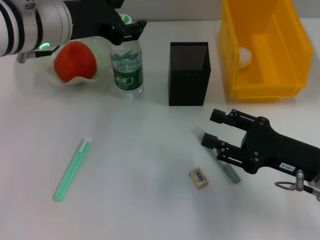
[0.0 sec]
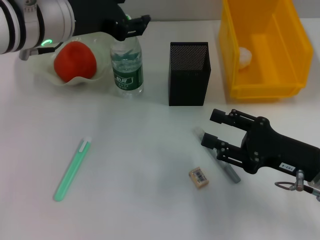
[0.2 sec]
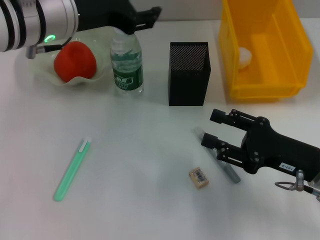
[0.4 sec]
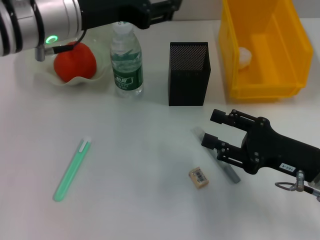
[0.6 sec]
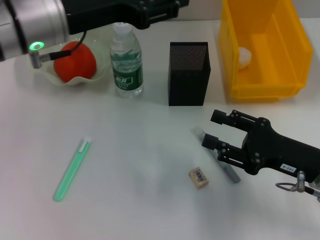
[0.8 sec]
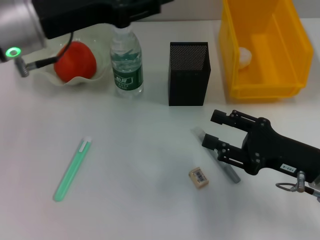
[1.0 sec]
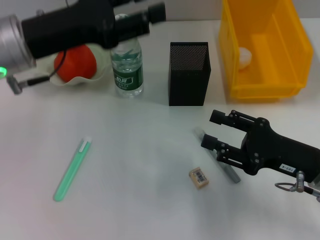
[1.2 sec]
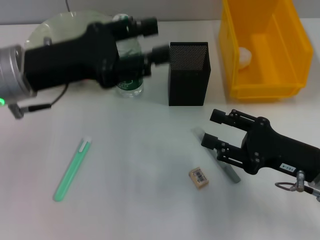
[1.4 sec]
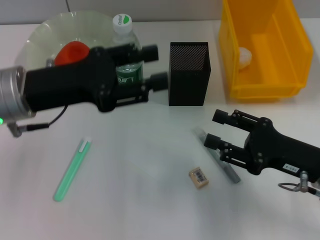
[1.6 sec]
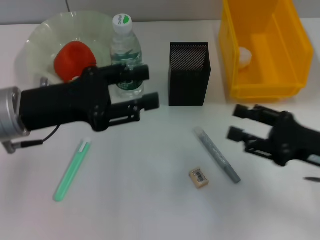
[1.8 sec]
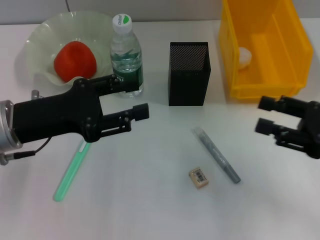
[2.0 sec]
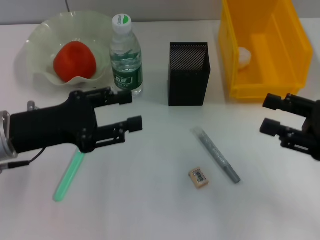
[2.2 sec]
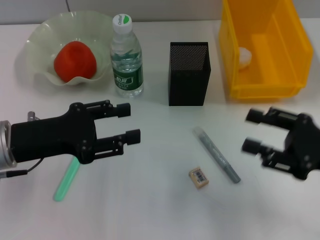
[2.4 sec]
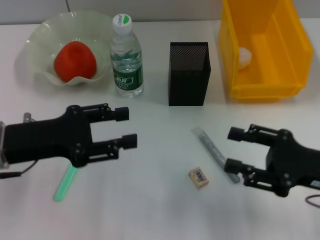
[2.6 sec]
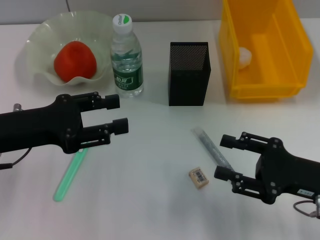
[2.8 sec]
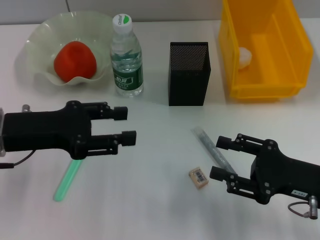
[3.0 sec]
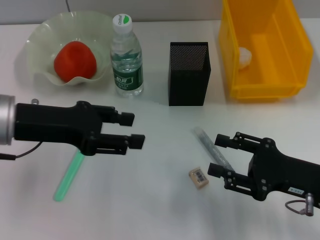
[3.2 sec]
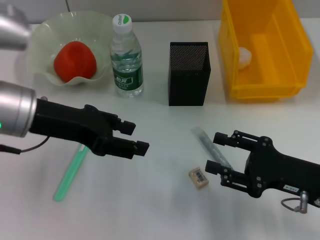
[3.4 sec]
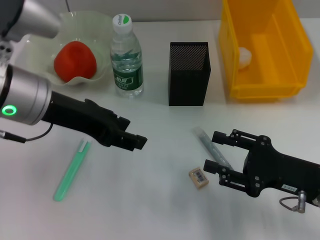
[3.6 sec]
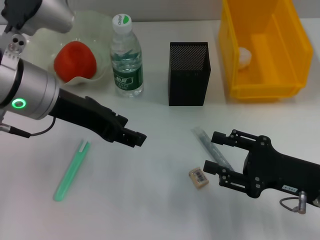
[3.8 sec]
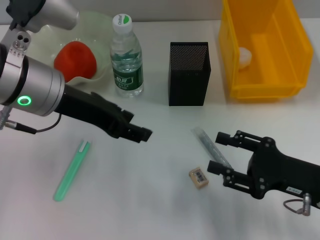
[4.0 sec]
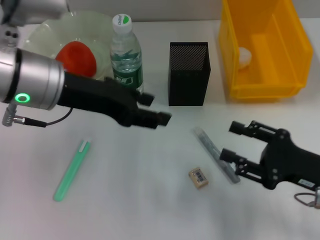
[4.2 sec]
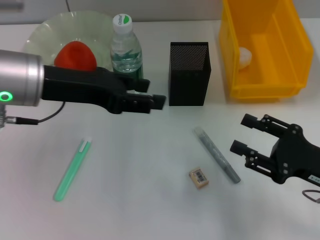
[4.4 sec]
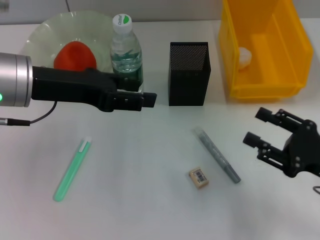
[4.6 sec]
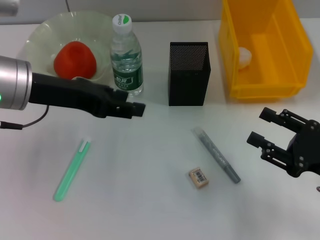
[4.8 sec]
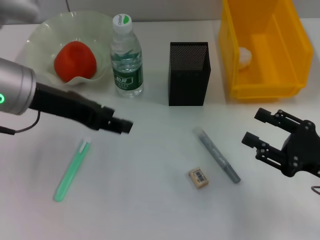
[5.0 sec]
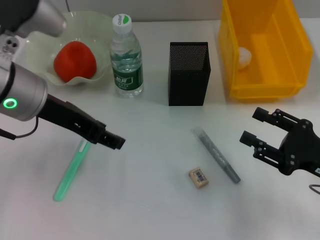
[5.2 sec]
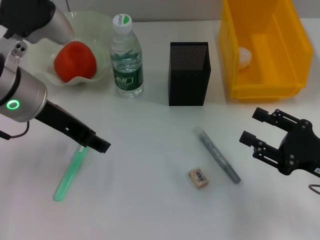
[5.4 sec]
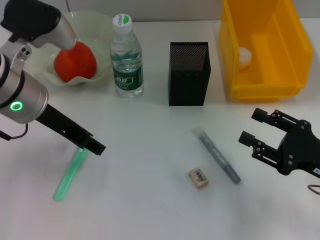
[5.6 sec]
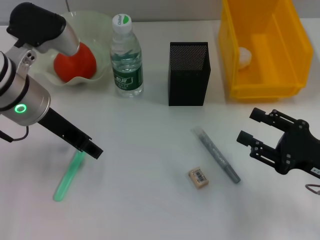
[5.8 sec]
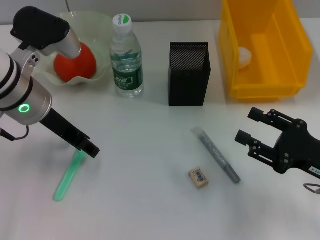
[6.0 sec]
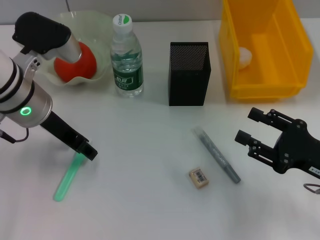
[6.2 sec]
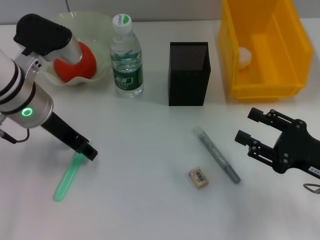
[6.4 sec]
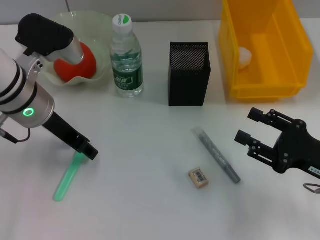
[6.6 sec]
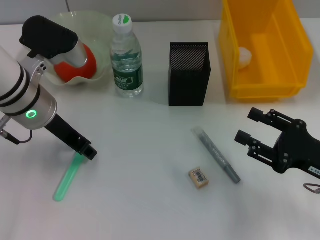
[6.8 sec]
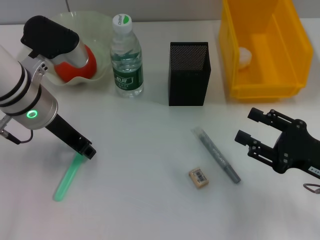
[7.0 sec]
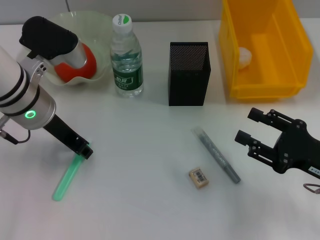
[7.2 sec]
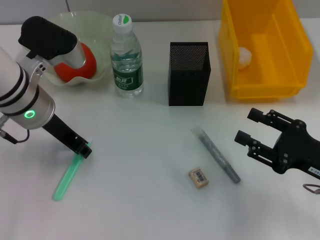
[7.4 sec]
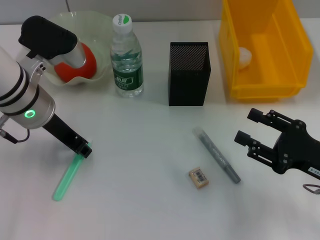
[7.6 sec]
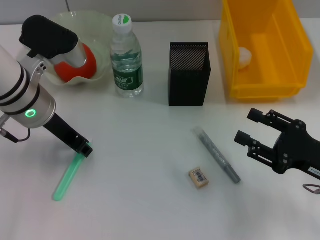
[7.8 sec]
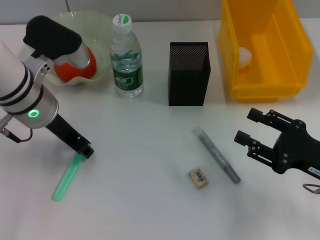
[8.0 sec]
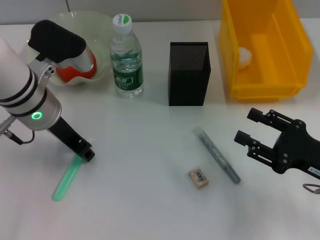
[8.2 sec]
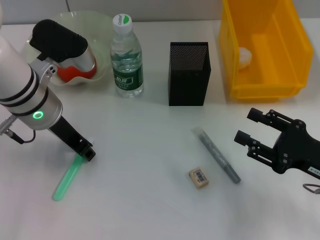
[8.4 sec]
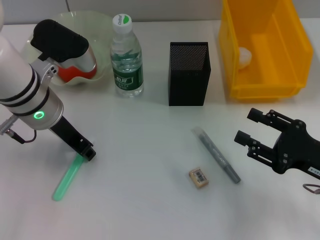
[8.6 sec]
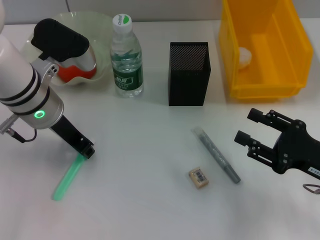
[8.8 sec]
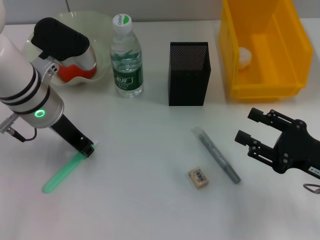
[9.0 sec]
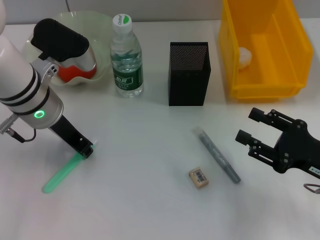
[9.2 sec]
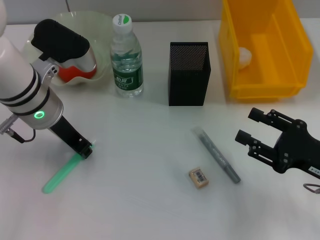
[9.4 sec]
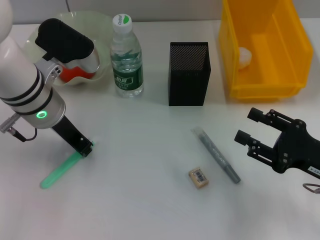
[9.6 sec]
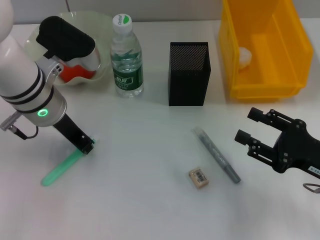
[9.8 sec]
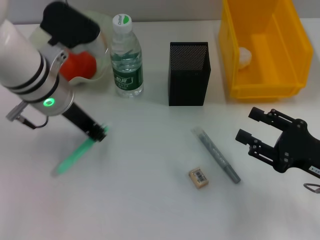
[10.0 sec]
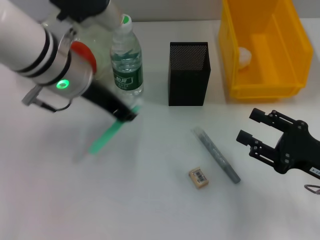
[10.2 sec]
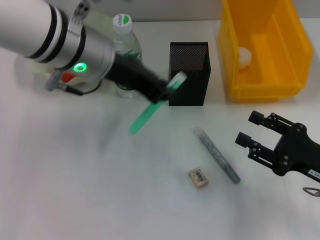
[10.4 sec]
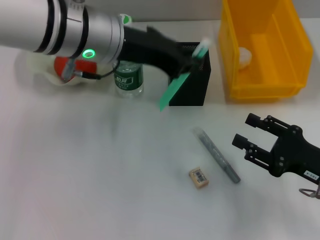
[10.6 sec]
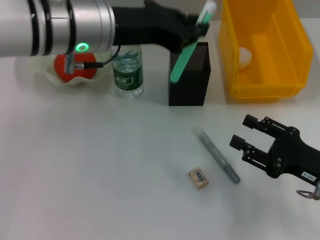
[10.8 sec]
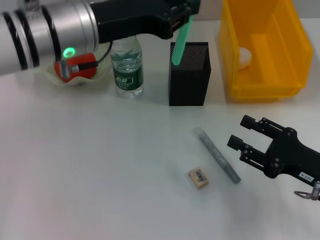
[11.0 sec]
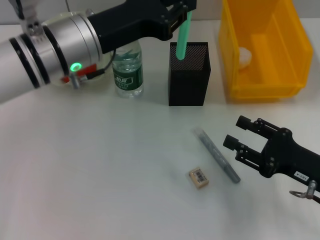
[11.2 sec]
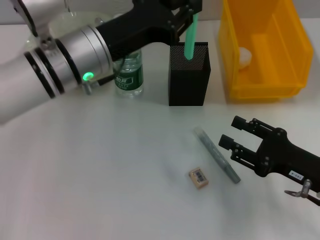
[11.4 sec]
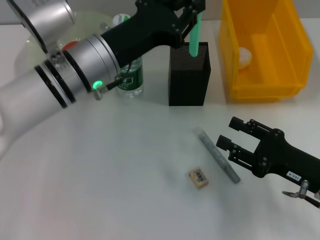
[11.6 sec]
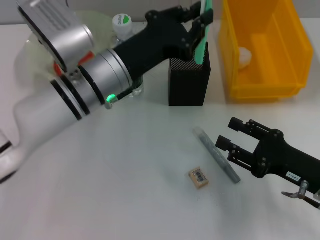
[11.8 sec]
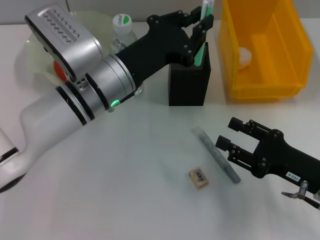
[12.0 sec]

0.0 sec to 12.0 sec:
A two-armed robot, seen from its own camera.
Step, 0.0 sec to 9.6 sec: Grab the blue utility knife with the left hand.
0.0 sec to 1.6 sec: The left gripper travels backward, to the left and downward by approximately 10 cm.
1.6 sec to 3.0 sec: The left gripper ends up approximately 5 cm from where it was.
3.0 sec to 4.4 sec: The left gripper is displaced upward and to the right by approximately 10 cm.
6.0 sec to 7.6 sec: The left gripper closes its fingers.
7.6 sec to 9.0 sec: Neither gripper changes place.
9.0 sec to 10.4 sec: The left gripper goes some 10 cm upward and to the right.
10.4 sec to 12.0 sec: The left gripper moves downward, some 10 cm.

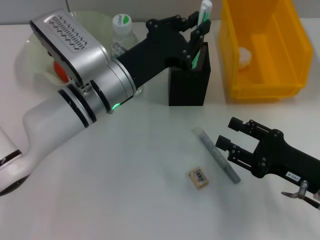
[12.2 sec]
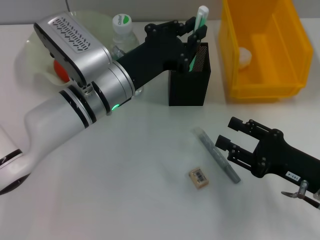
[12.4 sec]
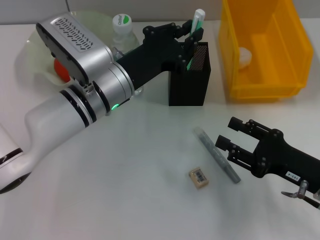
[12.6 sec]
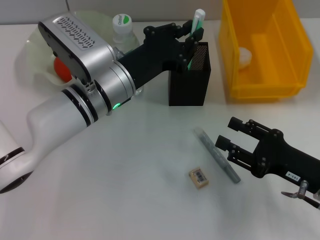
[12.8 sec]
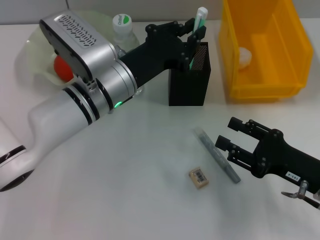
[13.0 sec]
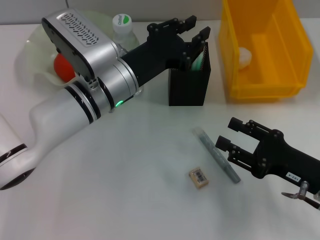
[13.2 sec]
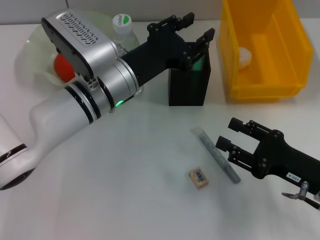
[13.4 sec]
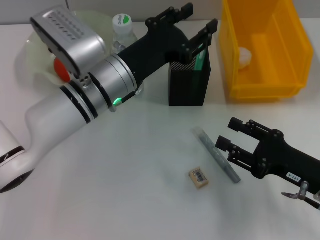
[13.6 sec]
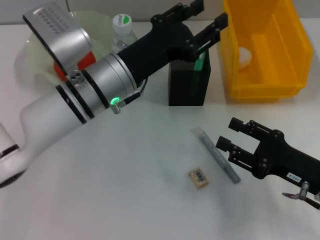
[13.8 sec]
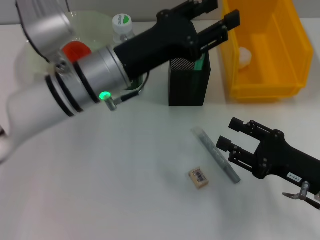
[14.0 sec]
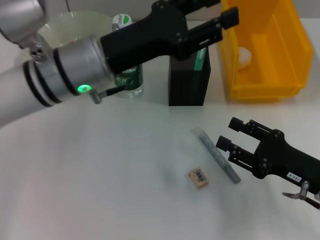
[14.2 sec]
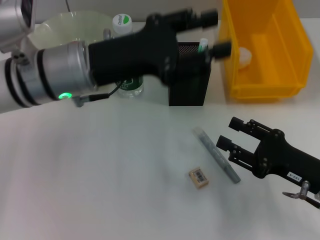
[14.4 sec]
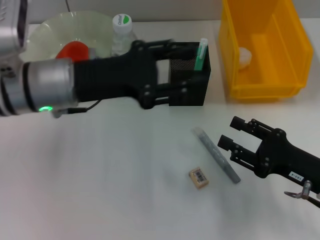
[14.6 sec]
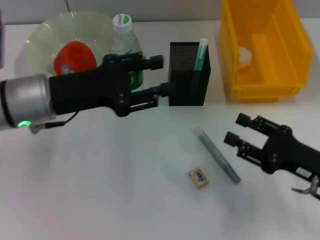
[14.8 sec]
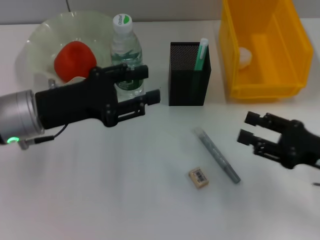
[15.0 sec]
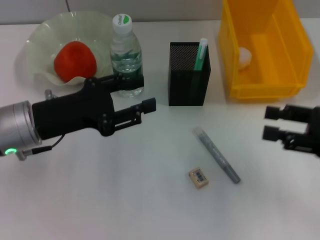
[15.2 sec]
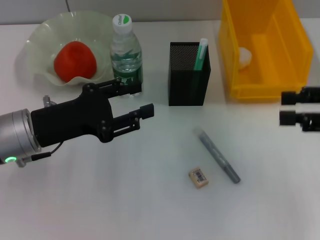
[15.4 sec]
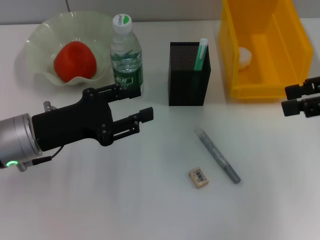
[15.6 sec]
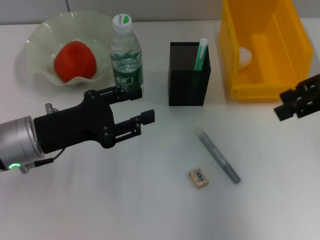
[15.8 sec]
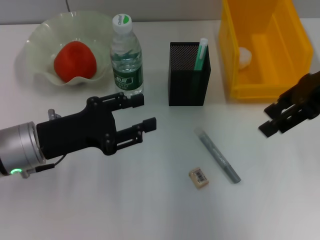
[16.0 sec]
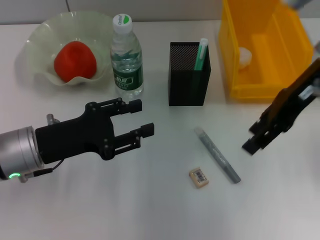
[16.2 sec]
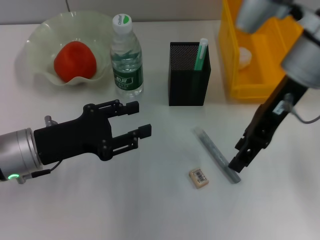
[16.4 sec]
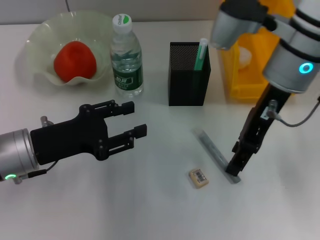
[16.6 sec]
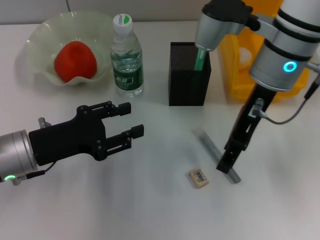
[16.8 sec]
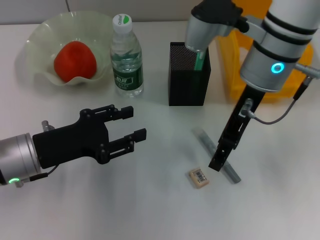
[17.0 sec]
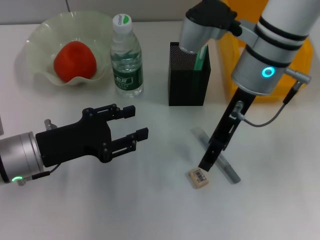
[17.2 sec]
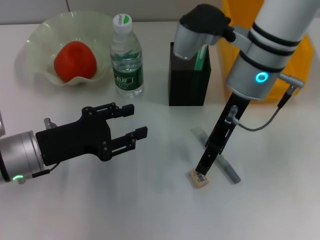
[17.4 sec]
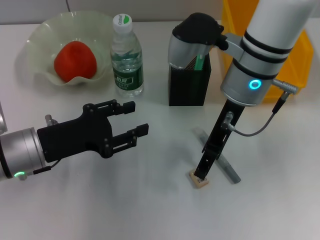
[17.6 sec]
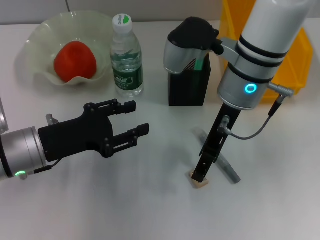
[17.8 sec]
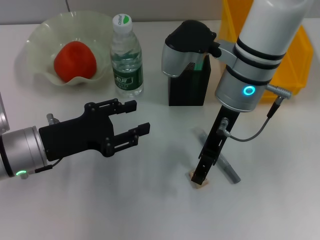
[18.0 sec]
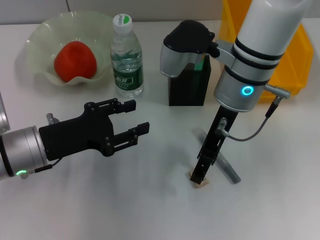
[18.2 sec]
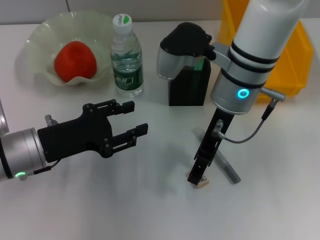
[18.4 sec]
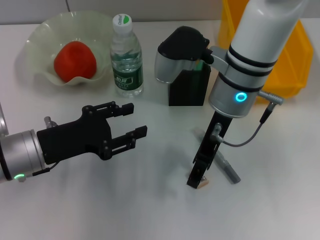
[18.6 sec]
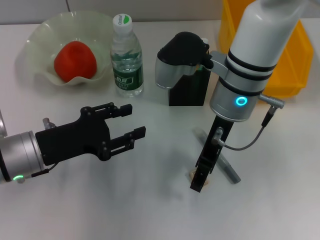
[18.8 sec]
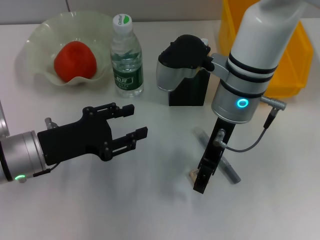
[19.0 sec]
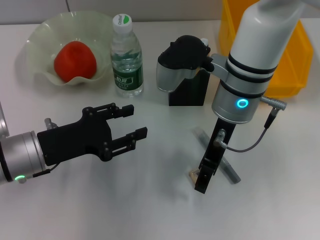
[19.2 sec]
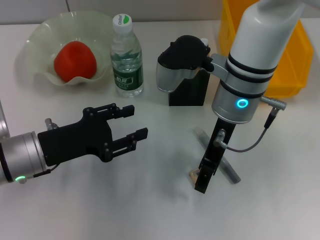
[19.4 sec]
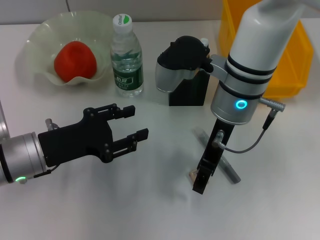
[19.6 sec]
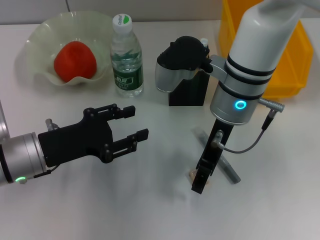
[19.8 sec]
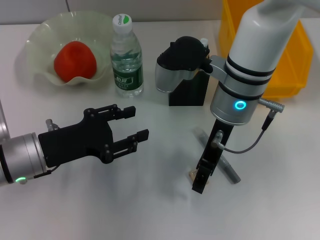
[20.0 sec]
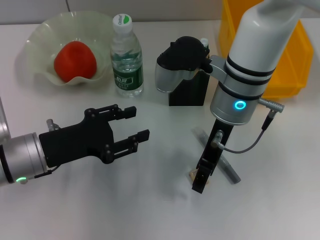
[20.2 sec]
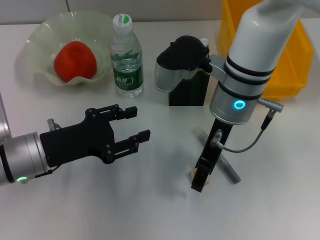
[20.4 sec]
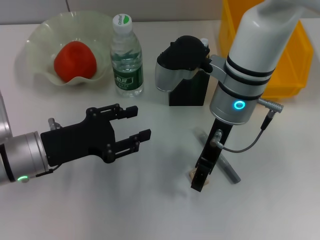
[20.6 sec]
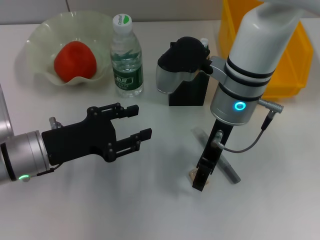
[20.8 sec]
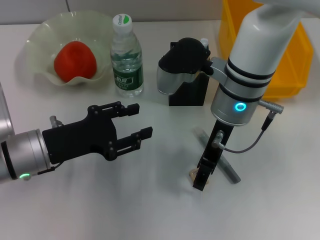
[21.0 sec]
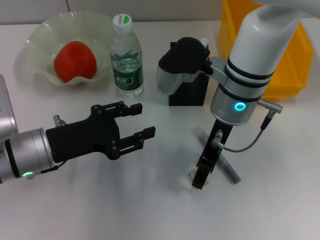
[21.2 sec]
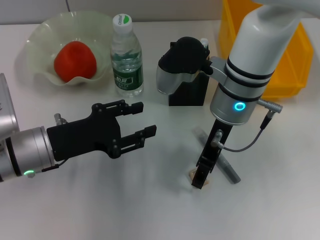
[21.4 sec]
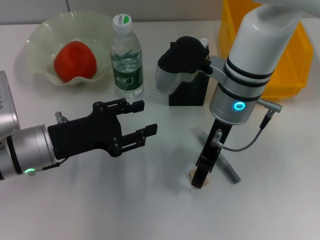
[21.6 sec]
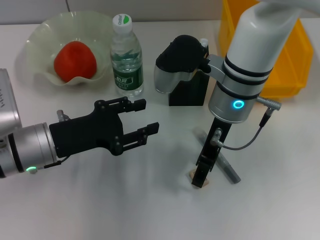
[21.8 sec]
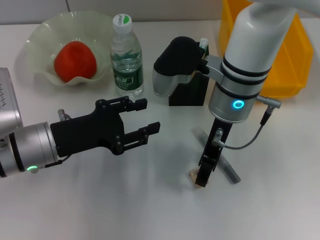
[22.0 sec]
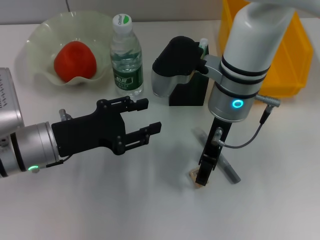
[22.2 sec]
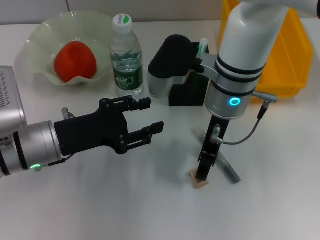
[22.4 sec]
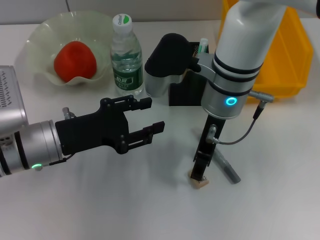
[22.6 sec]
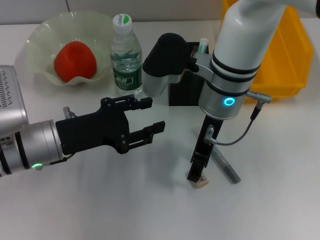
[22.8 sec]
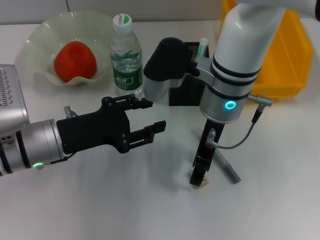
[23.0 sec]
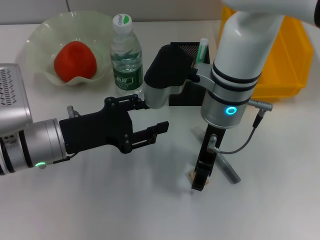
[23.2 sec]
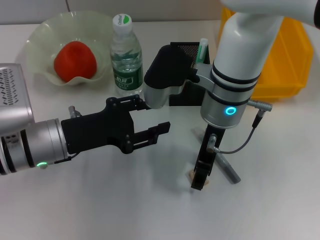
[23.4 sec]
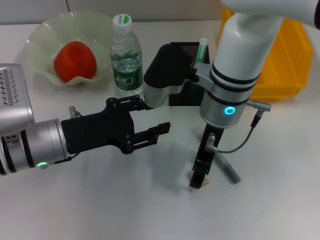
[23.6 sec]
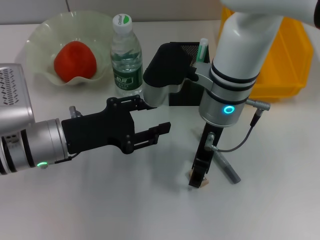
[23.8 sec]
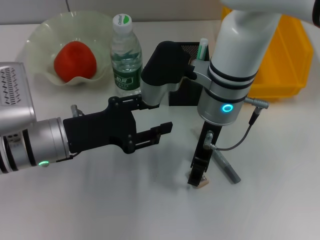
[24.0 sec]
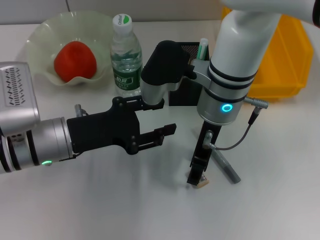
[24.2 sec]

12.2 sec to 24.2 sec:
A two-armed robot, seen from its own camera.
12.2 sec to 13.8 sec: The left gripper opens.
13.8 sec to 15.2 sec: The right gripper moves upward and to the right, some 10 cm. The left gripper heads to the left, covering about 10 cm.
15.2 sec to 16.6 sec: The right gripper heads to the left and forward, covering about 20 cm.
16.6 sec to 18.2 sec: The right gripper heads to the left, covering approximately 5 cm.
18.2 sec to 19.8 sec: The grippers move only a little.
19.8 sec to 21.2 sec: Neither gripper changes place.
21.2 sec to 22.6 sec: There are only small adjustments of the grippers.
22.6 sec to 24.2 sec: Neither gripper changes place.
